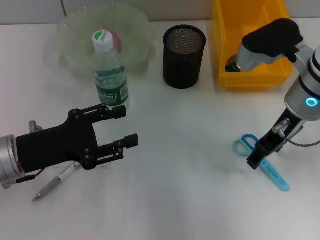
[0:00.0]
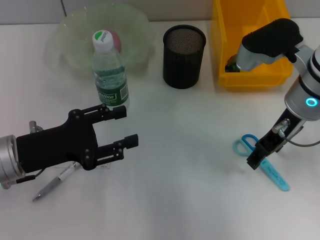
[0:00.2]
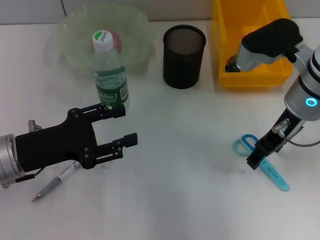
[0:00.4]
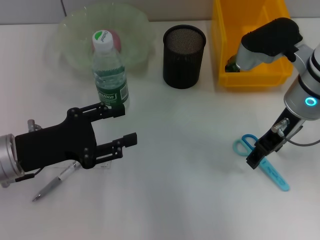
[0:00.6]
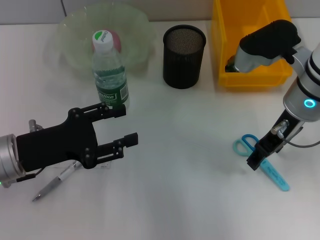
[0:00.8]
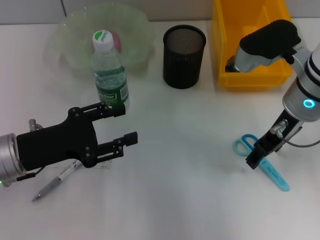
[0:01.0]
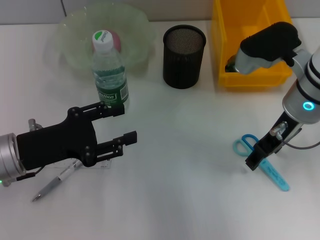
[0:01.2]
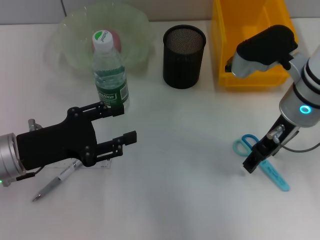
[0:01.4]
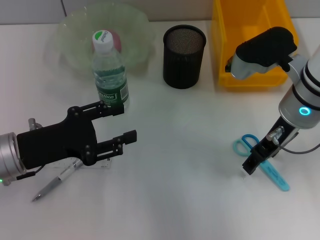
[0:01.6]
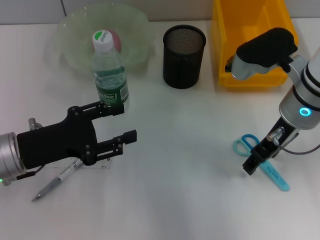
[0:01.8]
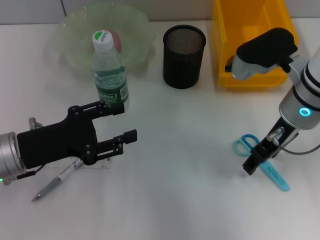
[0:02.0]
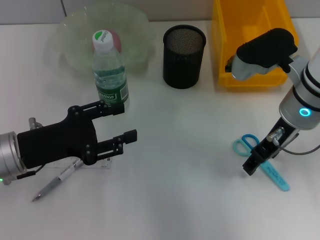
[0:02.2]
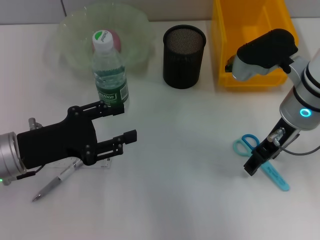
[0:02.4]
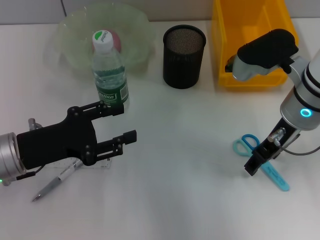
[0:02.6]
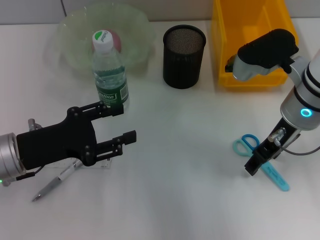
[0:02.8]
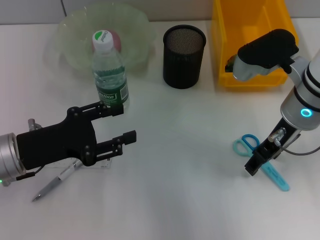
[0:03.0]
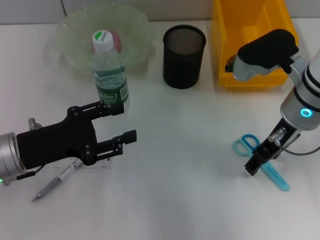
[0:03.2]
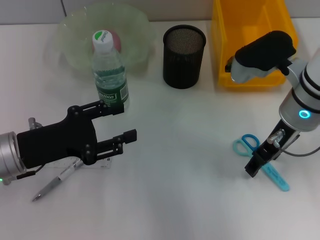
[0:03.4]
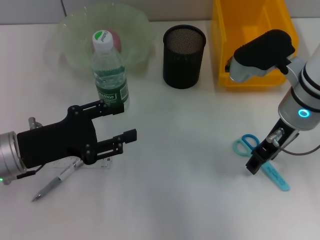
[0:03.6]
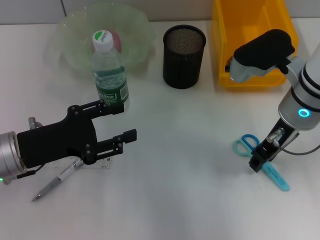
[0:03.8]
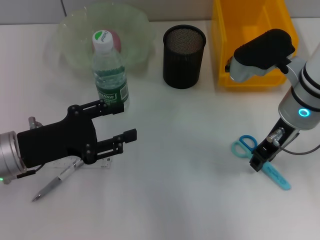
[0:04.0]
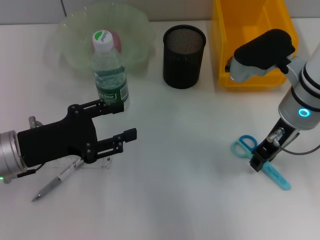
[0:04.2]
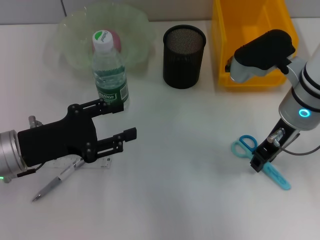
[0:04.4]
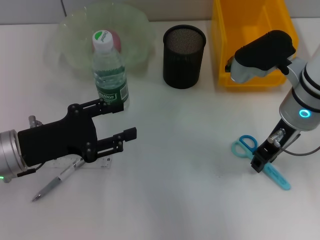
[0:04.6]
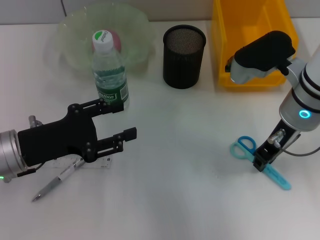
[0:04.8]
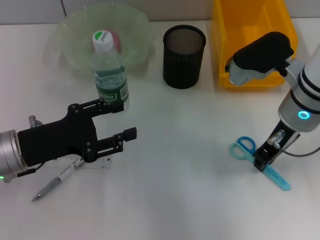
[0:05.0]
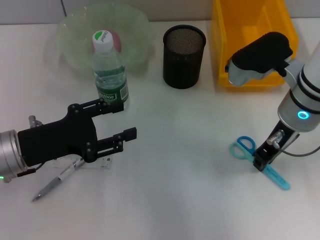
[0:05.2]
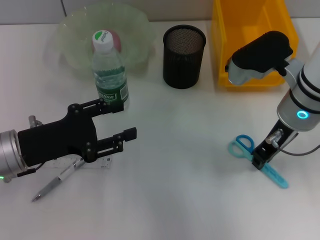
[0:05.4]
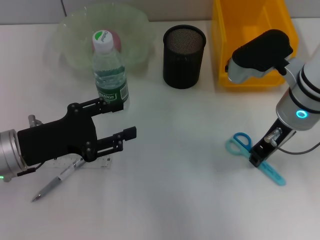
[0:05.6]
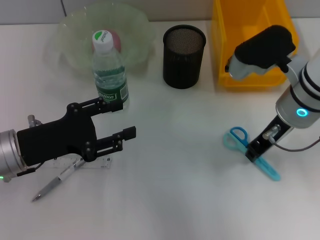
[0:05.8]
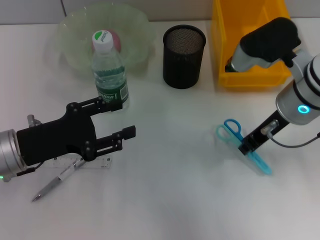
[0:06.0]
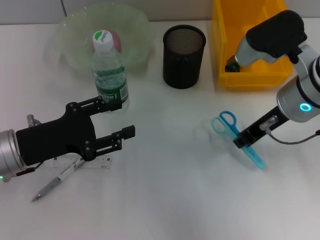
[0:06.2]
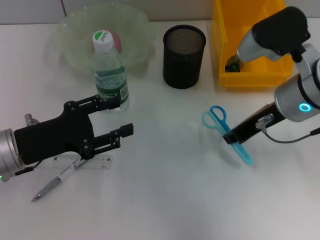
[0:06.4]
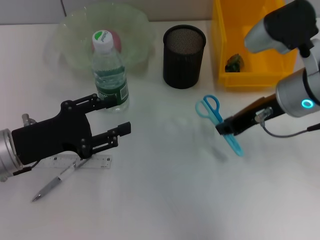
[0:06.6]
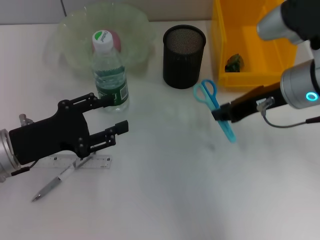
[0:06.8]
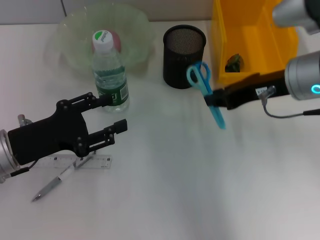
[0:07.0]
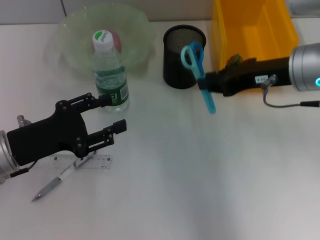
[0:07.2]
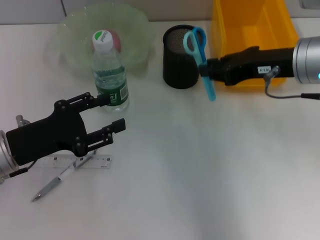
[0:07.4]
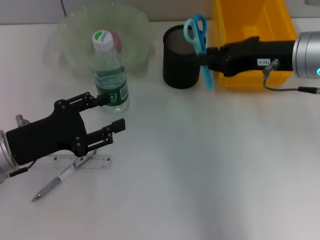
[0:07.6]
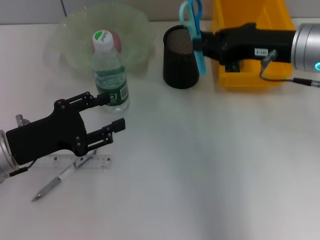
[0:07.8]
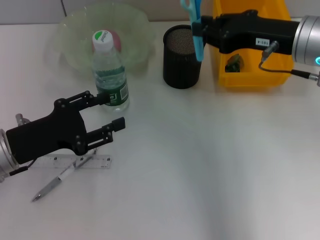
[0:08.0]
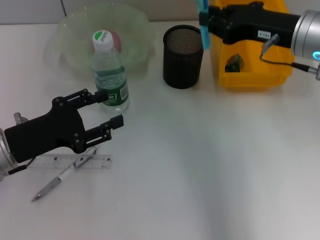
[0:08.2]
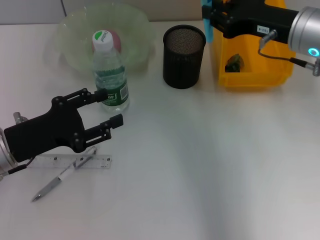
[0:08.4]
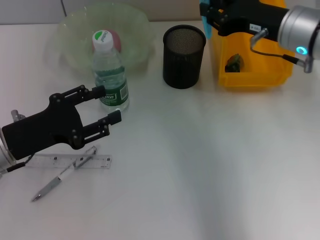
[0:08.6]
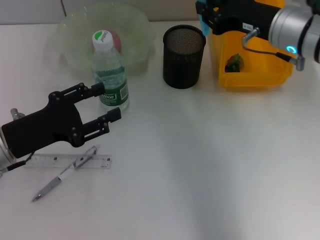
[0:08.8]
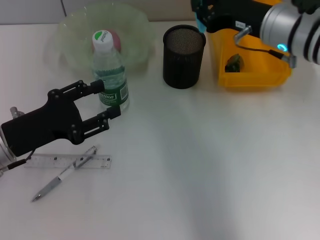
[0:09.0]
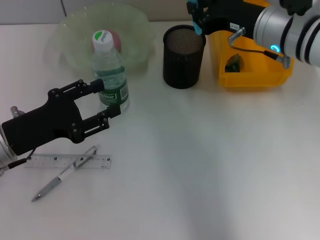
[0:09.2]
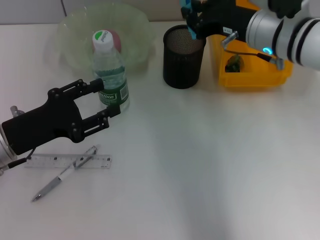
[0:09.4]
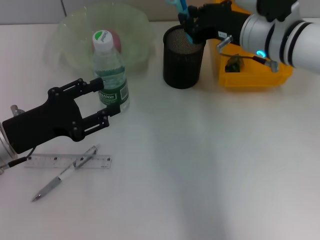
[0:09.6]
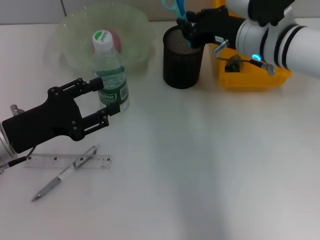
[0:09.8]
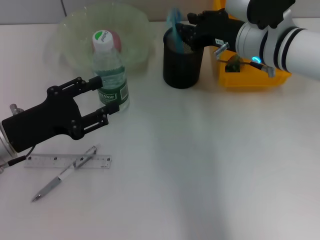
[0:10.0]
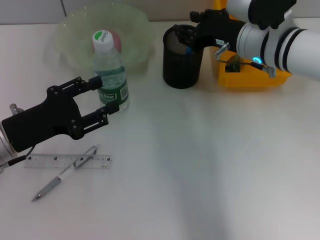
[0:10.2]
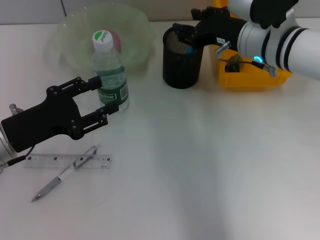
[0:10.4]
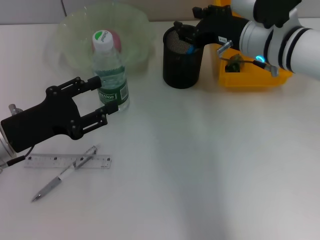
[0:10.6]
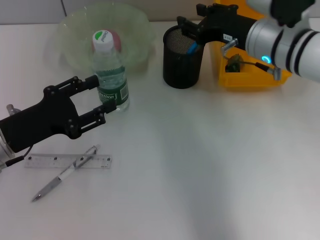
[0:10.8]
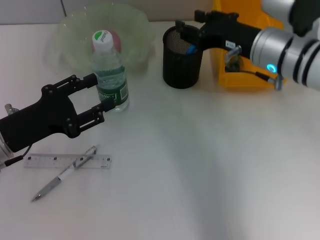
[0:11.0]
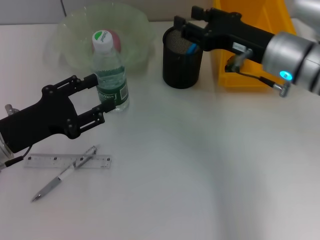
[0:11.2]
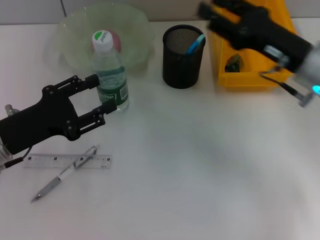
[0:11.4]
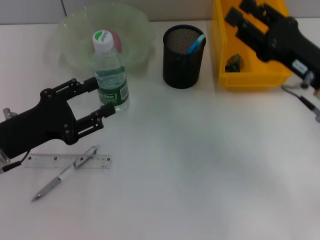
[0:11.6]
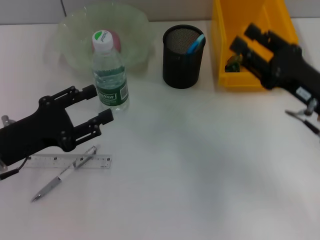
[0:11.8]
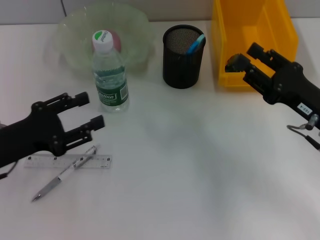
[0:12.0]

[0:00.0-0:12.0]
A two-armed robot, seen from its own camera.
Step, 0:00.0 to 0:05.6: Grab the blue scissors with the right hand.
Step, 0:05.8 to 0:10.0: Place the blue scissors into the pen holder with the right hand.
0:00.0 to 0:01.6: The two grippers keep their place.
0:01.6 to 0:03.0: Both grippers stay about where they are.
0:03.0 to 0:04.4: The right gripper closes up.
0:04.4 to 0:06.0: There are only small adjustments of the grippers.
0:07.6 to 0:09.0: The right gripper ends up approximately 5 cm from where it was.
0:09.0 to 0:10.4: The right gripper opens.
0:10.4 to 0:12.0: The right gripper is displaced backward, to the right and downward by about 20 cm.

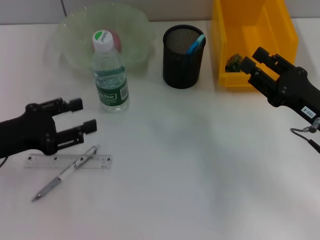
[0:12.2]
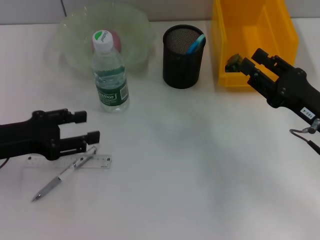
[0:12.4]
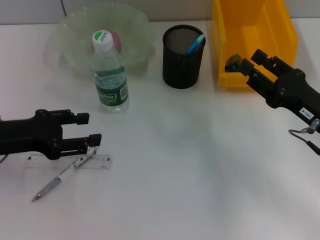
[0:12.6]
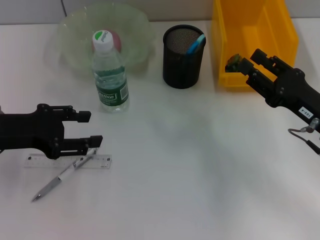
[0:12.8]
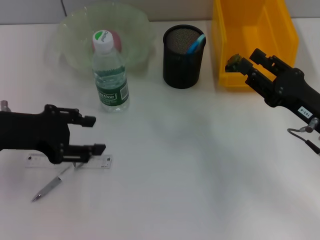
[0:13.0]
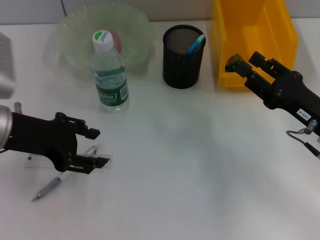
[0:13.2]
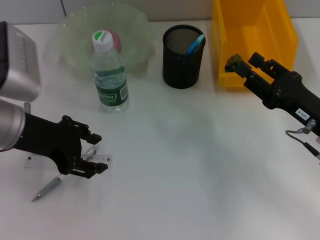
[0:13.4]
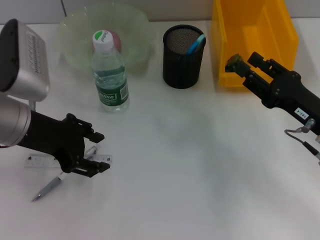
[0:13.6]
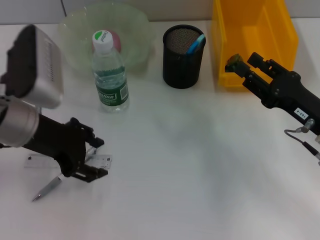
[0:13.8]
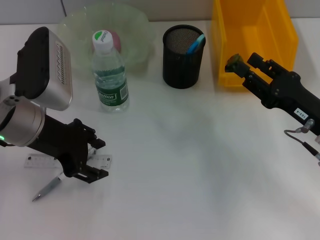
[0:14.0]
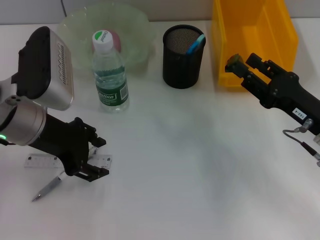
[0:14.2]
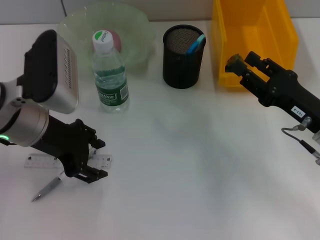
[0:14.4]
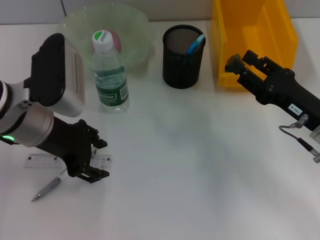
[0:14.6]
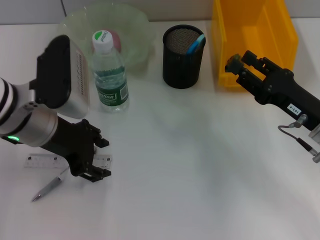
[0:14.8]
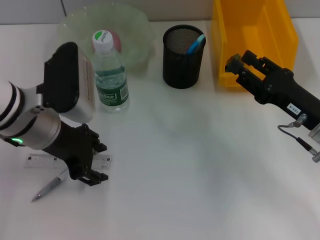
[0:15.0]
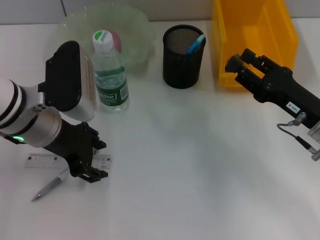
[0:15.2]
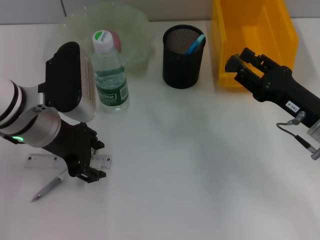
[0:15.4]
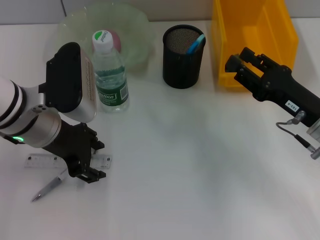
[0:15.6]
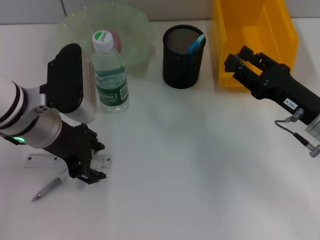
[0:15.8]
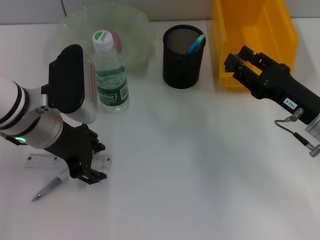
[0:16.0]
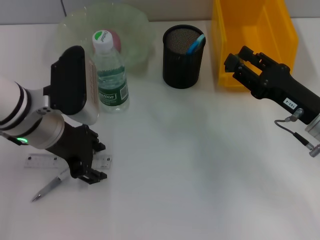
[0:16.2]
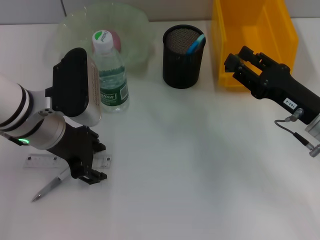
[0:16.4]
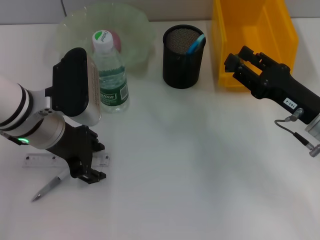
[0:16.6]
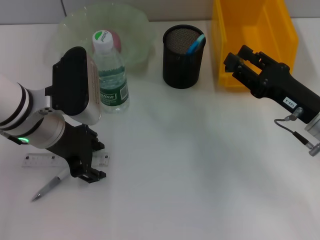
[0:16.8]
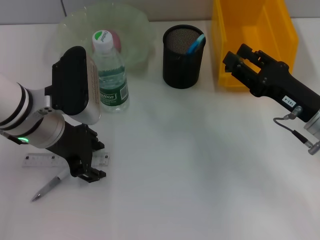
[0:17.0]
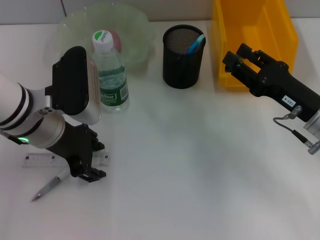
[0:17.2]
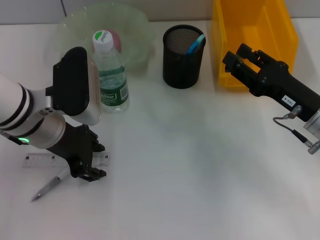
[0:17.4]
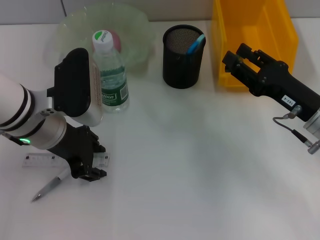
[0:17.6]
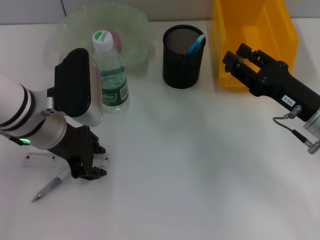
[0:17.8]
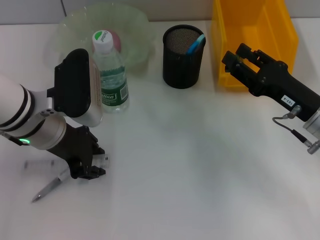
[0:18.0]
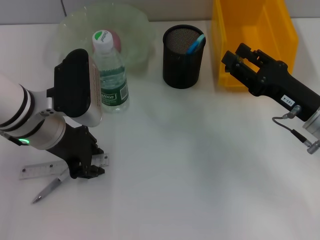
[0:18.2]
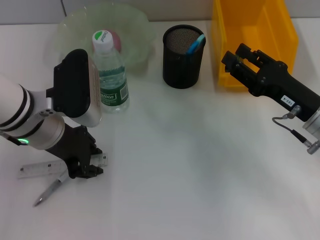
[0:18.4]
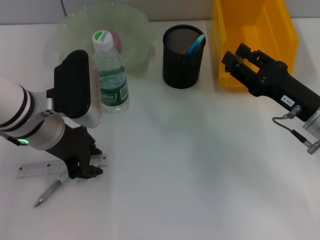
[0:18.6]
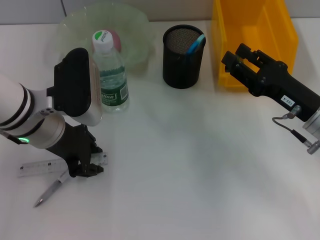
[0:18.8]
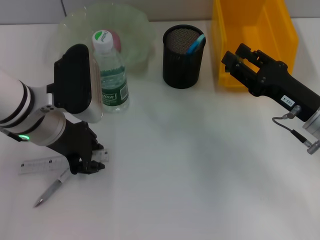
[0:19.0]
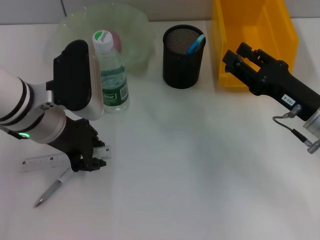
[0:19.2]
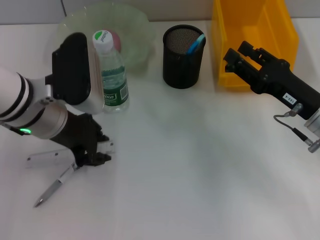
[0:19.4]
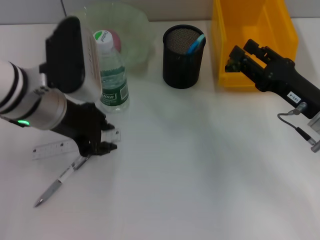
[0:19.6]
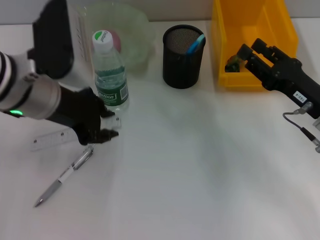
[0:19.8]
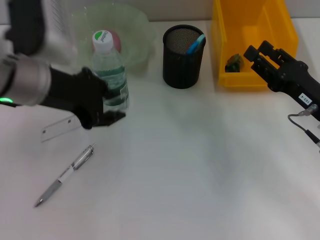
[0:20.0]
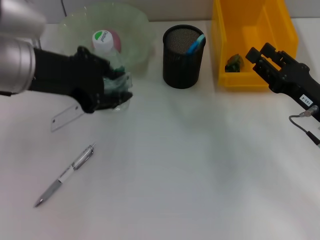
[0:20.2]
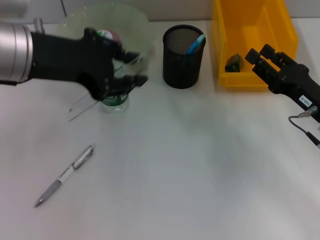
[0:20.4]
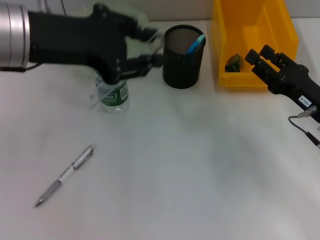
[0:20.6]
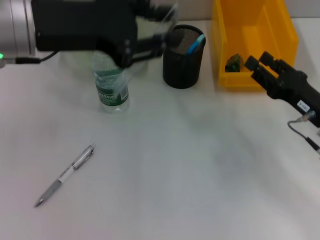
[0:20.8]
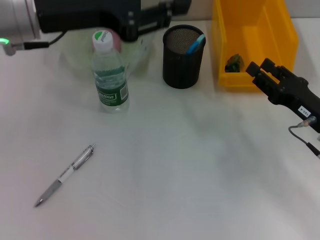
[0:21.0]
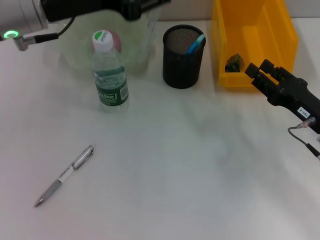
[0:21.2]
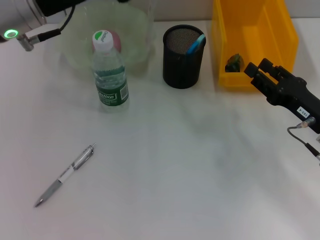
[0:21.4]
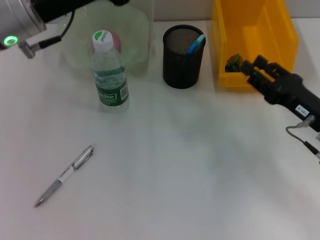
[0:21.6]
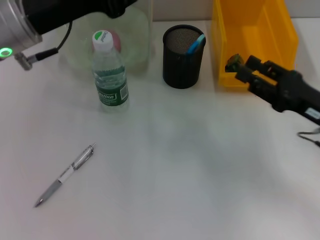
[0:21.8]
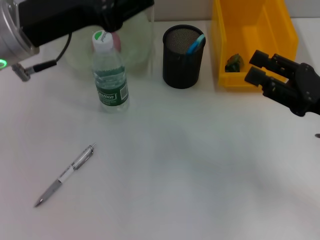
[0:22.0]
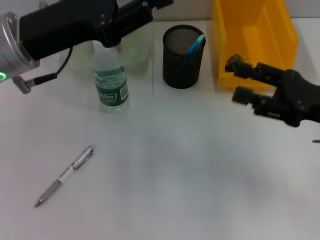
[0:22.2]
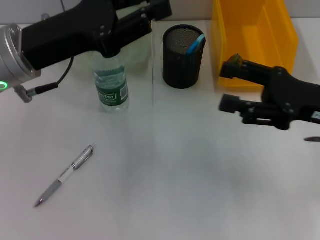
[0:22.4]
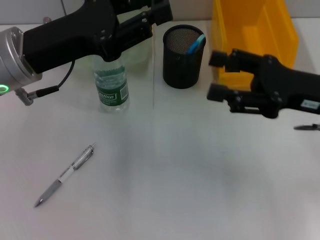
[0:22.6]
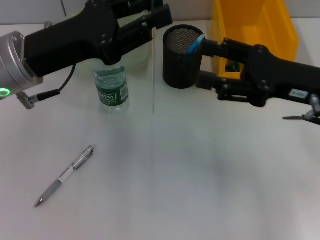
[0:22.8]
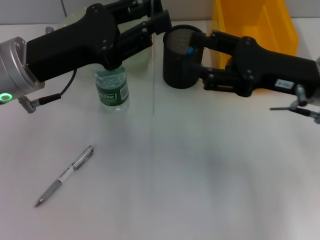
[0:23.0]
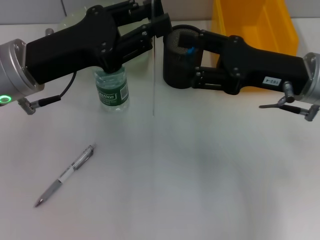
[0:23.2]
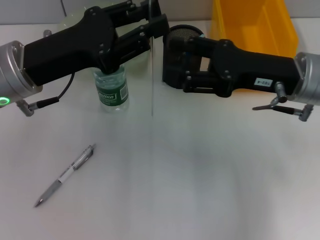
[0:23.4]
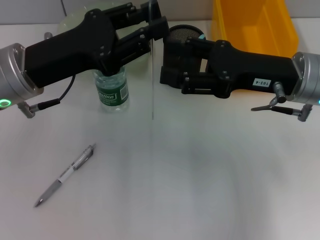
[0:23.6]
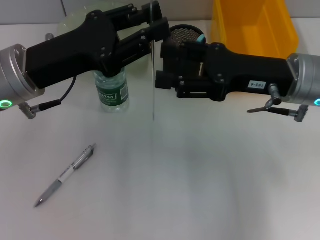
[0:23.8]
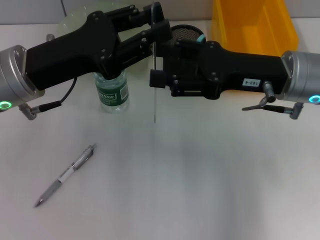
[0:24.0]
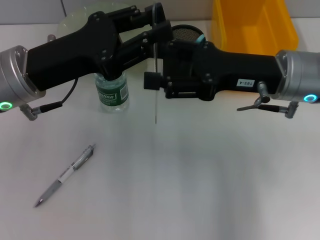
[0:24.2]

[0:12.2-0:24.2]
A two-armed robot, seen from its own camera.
Step, 0:12.2 to 0:18.6: Grab the ruler with the left hand.
0:12.2 to 0:13.8: The left gripper shifts approximately 10 cm to the right and upward.
0:13.8 to 0:15.2: The grippers stay close to where they were, moving slightly.
0:15.2 to 0:16.6: Neither gripper changes place.
0:16.6 to 0:18.2: The left gripper closes.
0:18.2 to 0:19.8: The left gripper travels upward by about 5 cm.
0:19.8 to 0:21.2: The left gripper moves upward, approximately 5 cm.
0:21.2 to 0:22.6: The right gripper is displaced upward by roughly 10 cm, and opens. The left gripper is displaced downward by some 5 cm.
0:22.6 to 0:24.2: The right gripper is displaced to the left by approximately 5 cm.
